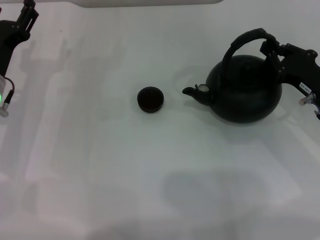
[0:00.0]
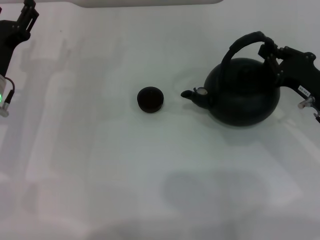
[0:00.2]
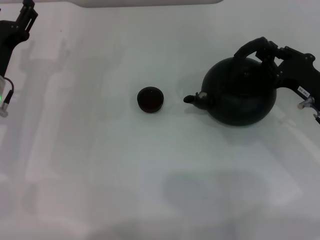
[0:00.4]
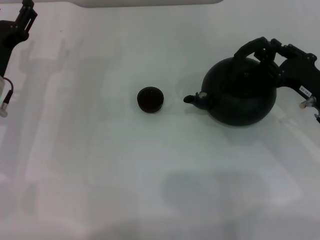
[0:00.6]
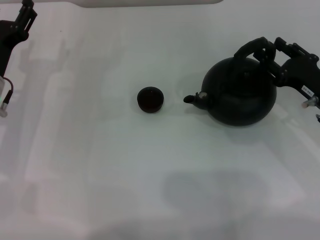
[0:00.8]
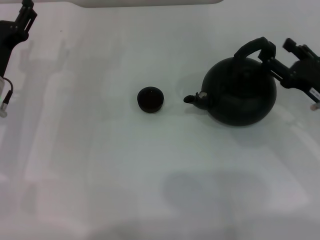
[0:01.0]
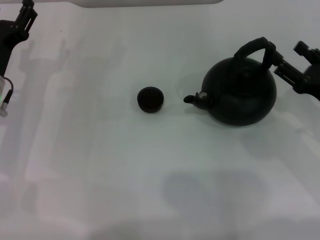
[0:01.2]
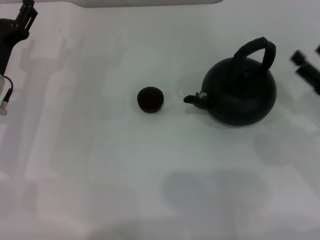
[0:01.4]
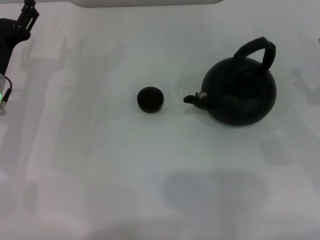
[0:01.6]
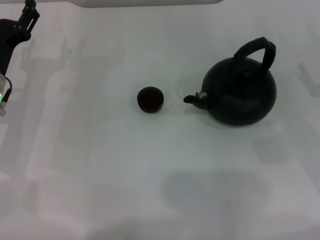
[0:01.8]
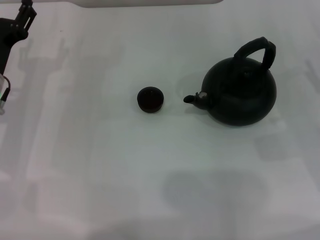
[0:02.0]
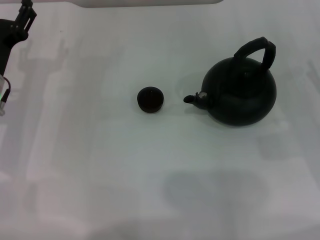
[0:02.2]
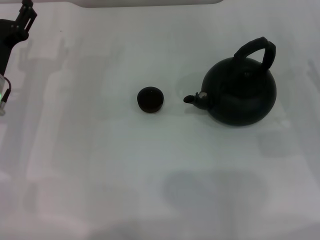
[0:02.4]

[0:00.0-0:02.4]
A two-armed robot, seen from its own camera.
Task of the whole recording: Grasp the handle of the teapot with one hand and pour tea into the teacup.
0:00.0 to 0:01.2: The right gripper opens its fingers.

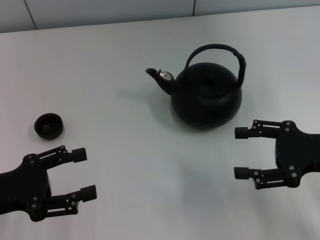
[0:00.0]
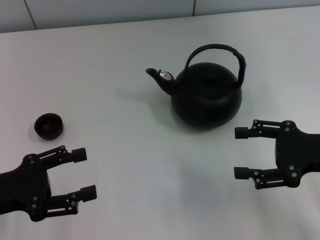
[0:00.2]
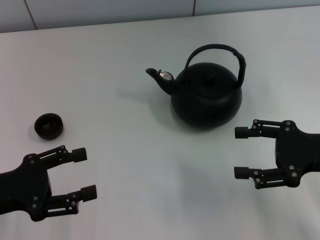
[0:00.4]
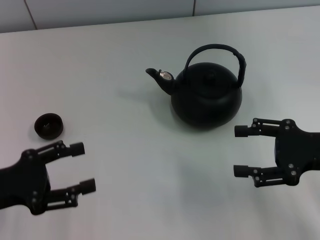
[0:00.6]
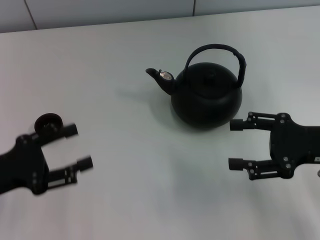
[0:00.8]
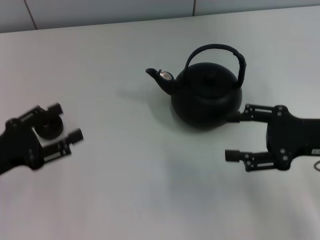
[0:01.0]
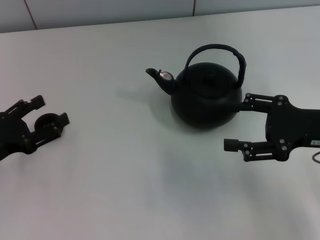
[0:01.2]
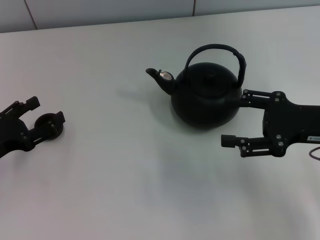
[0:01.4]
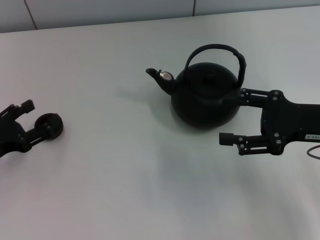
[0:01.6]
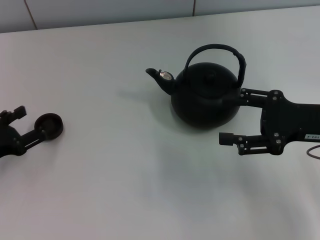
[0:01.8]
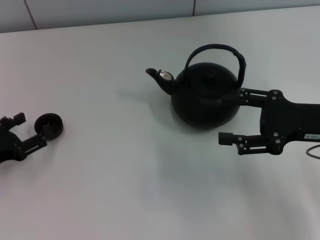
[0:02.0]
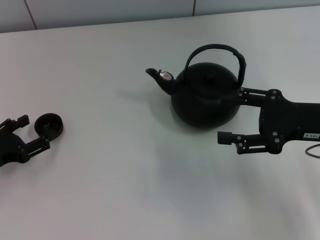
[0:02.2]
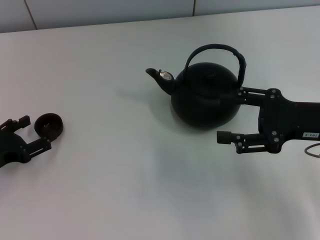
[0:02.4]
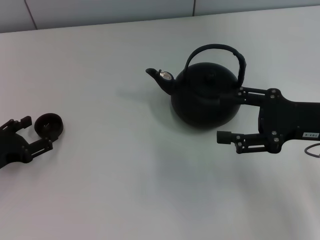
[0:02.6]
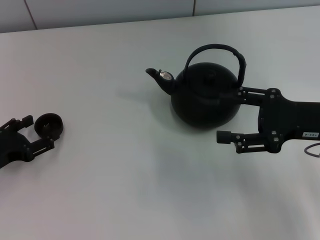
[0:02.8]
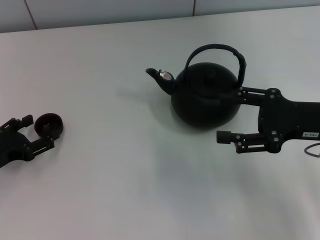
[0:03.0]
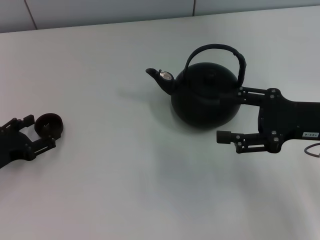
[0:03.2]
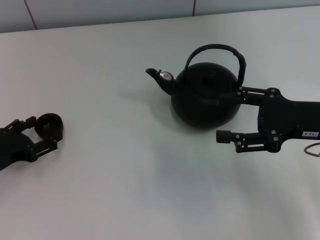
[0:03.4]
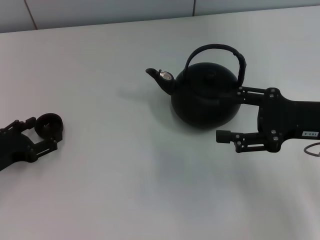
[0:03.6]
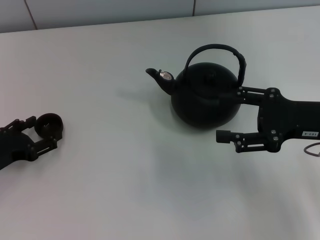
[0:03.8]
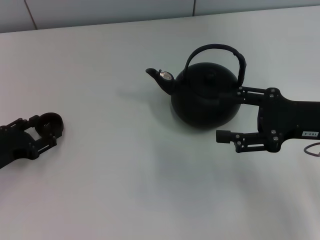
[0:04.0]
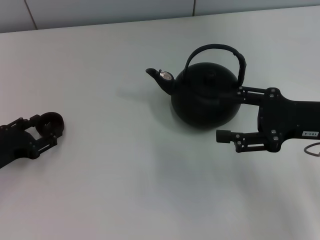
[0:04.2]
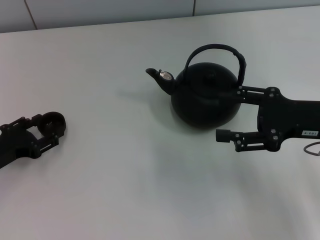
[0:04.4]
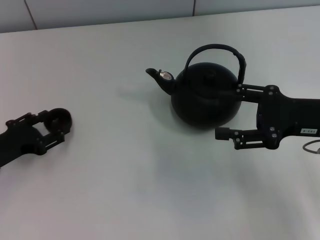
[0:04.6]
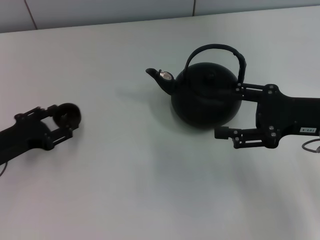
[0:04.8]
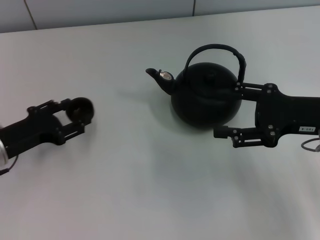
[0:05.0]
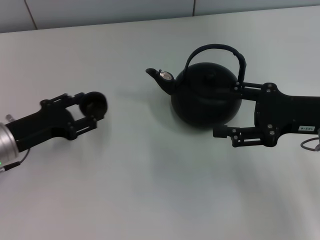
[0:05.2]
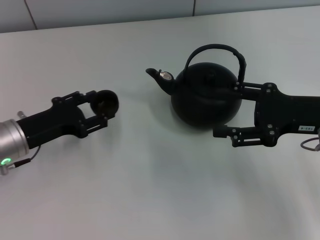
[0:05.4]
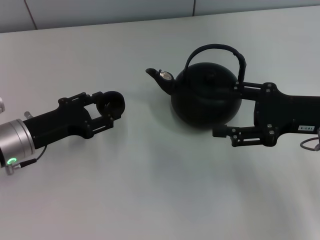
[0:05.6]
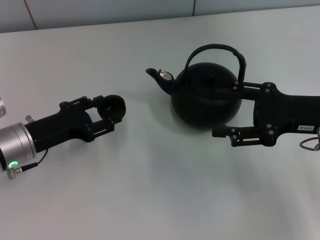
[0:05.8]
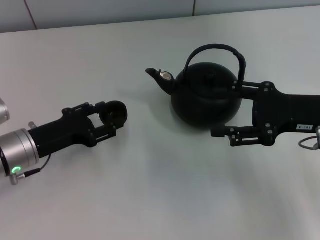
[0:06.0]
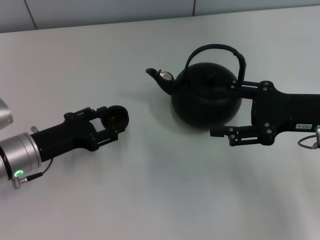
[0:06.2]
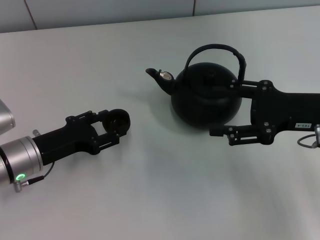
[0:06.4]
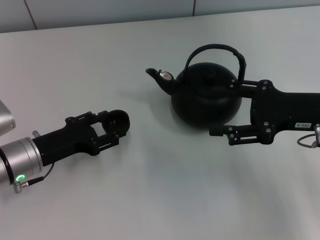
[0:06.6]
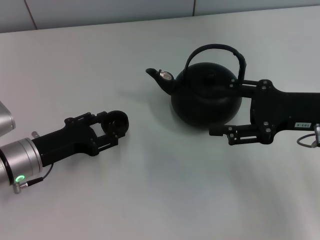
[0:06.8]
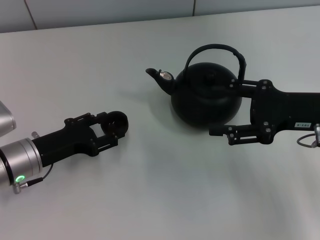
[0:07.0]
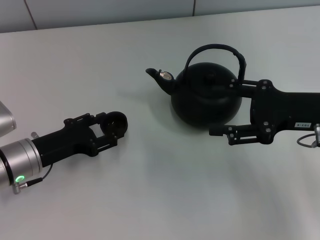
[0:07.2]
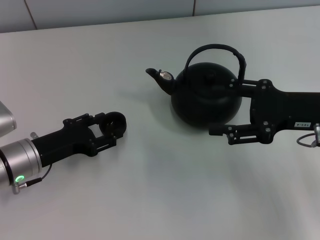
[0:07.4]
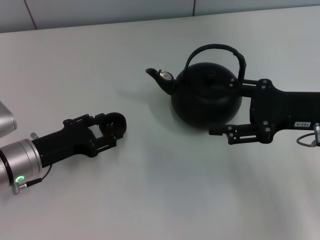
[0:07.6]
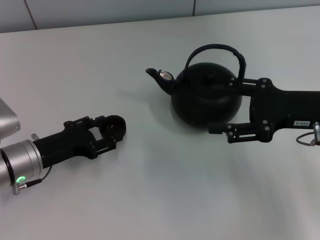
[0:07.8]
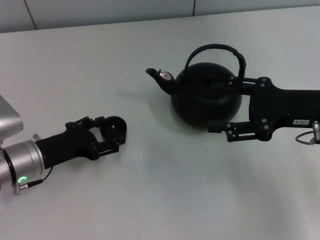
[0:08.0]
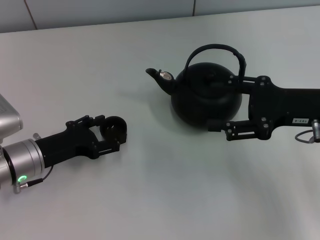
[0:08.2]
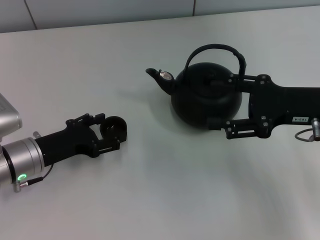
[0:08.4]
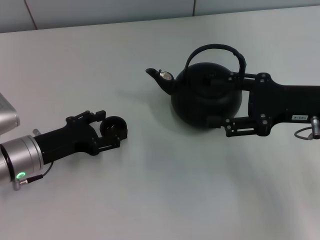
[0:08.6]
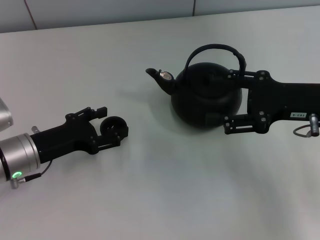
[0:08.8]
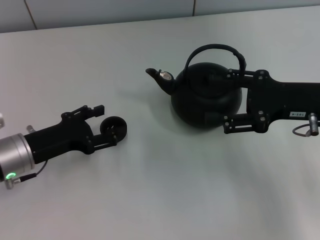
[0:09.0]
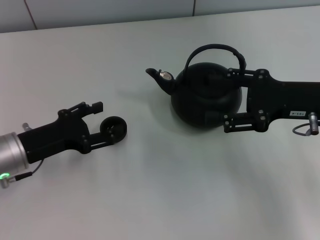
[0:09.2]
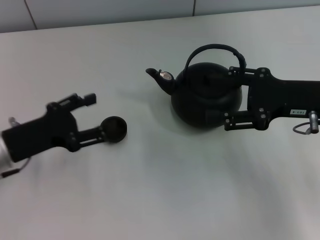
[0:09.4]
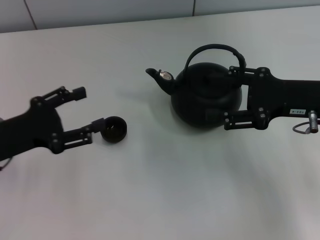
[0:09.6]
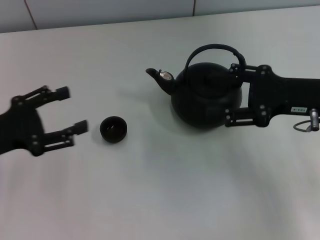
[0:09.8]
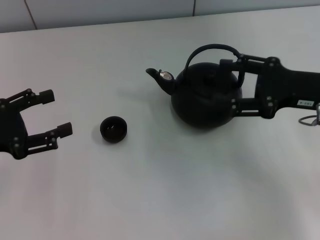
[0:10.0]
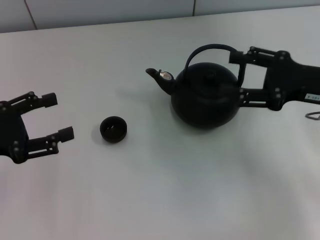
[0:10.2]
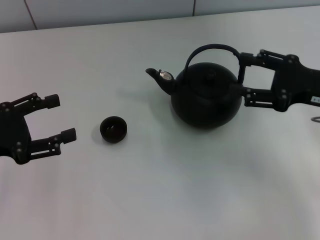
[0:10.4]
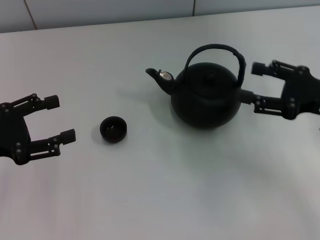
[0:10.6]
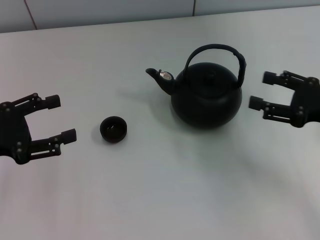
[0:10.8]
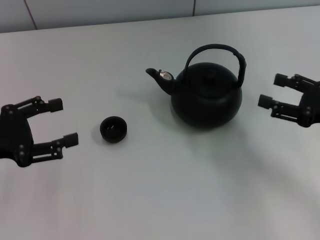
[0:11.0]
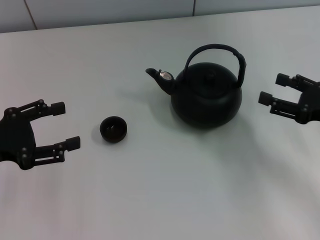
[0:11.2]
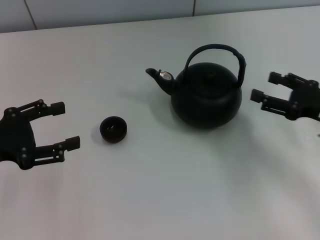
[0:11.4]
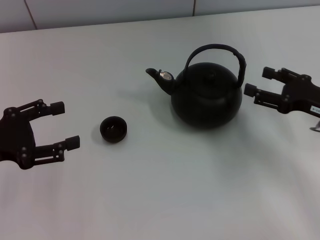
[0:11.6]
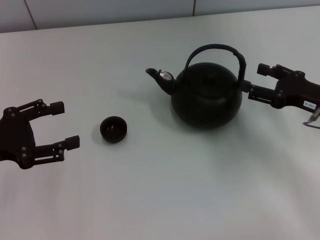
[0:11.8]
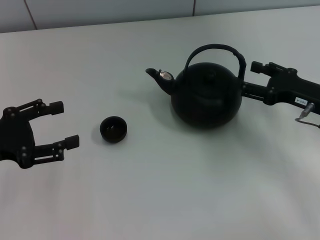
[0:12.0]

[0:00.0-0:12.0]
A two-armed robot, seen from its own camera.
Task of the whole recording: Grasp the handle of the teapot with one hand and pour tea into the teacup.
Step, 0:00.0 to 0:05.0: Pick up the teacup with the left gripper.
Step, 0:05.4 to 0:09.6: Place the teacup in the center of view with the left gripper.
0:00.0 to 0:01.6: The left gripper shifts by approximately 5 cm.
0:01.6 to 0:03.0: The grippers move only a little.
0:03.0 to 0:04.4: The left gripper closes its fingers.
0:04.4 to 0:06.0: The left gripper goes approximately 5 cm to the right.
0:06.0 to 0:07.6: The left gripper opens up.
0:07.6 to 0:09.0: There are only small adjustments of the grippers.
0:09.0 to 0:10.4: The left gripper goes roughly 10 cm to the left and upward.
0:10.4 to 0:12.0: The right gripper goes approximately 5 cm downward.

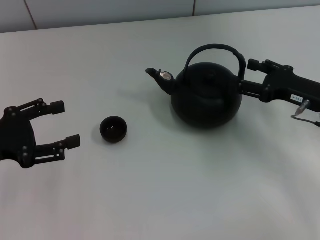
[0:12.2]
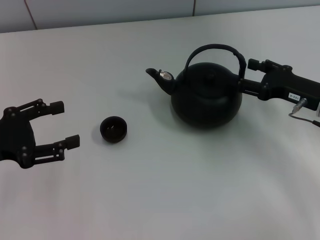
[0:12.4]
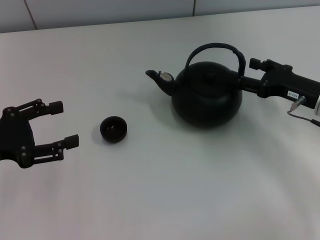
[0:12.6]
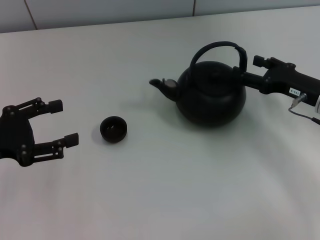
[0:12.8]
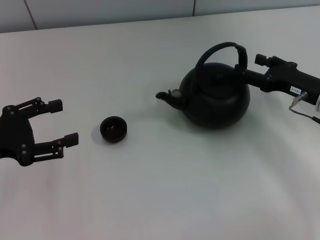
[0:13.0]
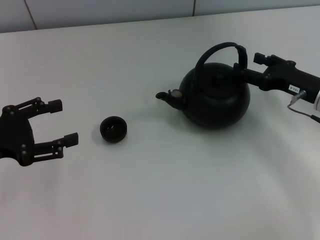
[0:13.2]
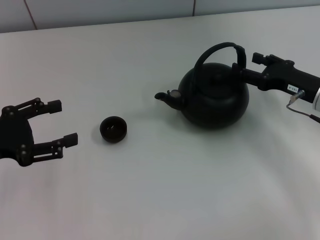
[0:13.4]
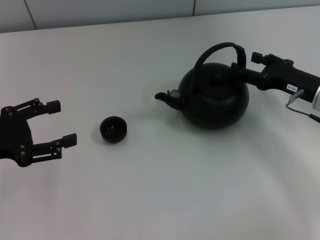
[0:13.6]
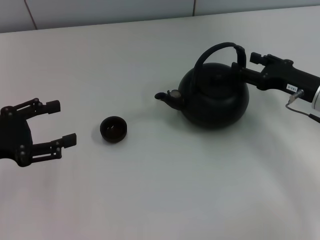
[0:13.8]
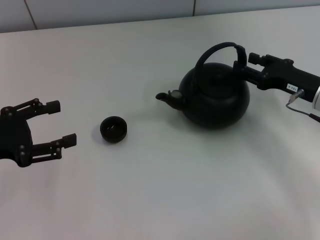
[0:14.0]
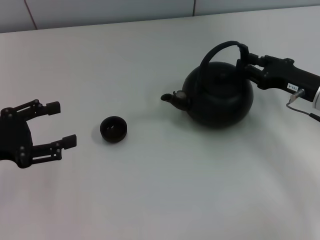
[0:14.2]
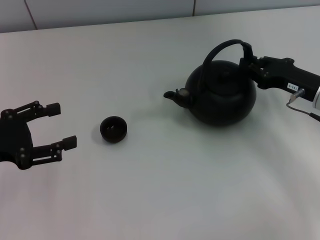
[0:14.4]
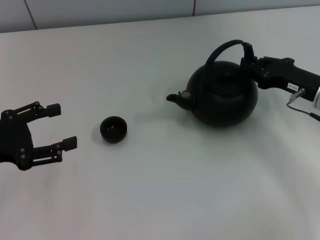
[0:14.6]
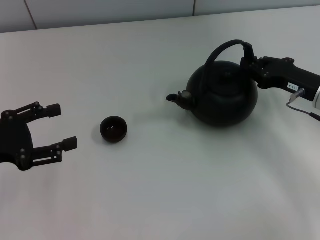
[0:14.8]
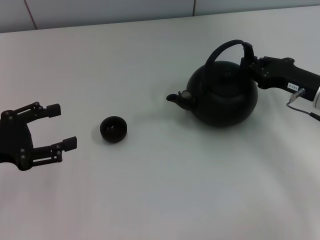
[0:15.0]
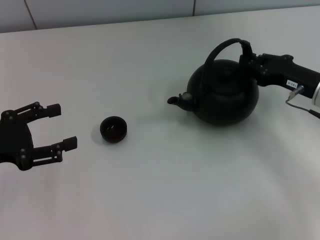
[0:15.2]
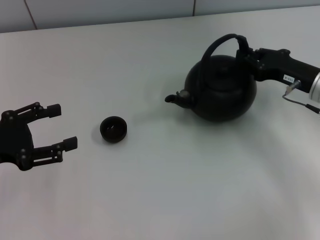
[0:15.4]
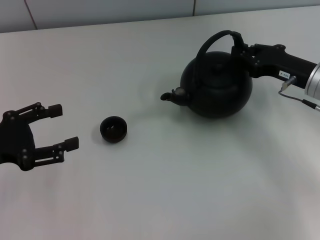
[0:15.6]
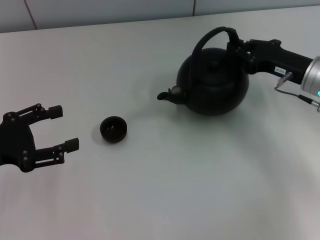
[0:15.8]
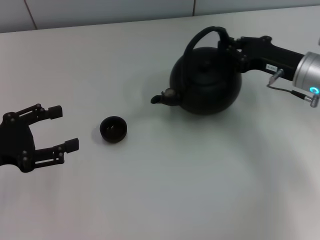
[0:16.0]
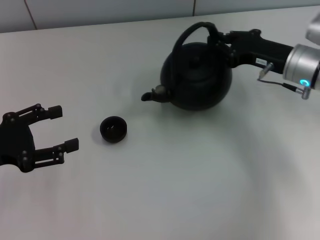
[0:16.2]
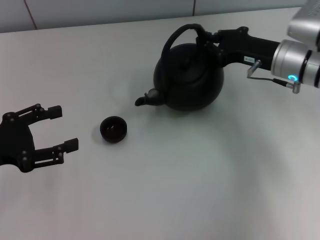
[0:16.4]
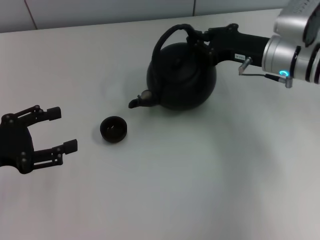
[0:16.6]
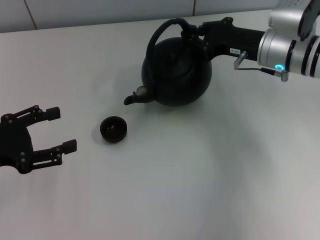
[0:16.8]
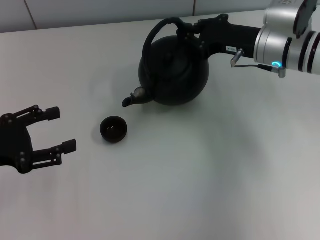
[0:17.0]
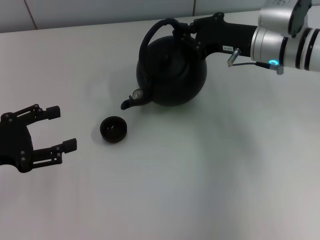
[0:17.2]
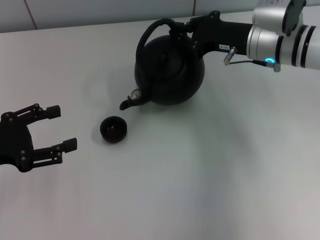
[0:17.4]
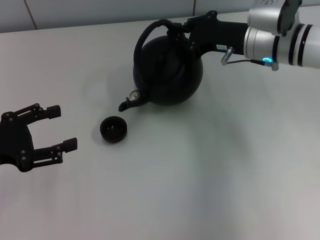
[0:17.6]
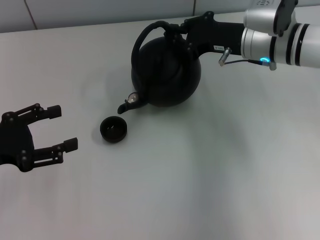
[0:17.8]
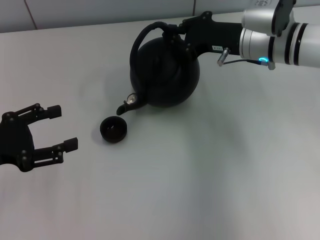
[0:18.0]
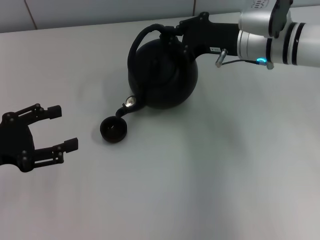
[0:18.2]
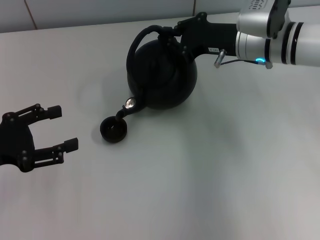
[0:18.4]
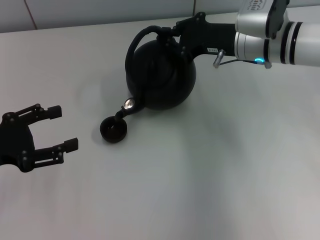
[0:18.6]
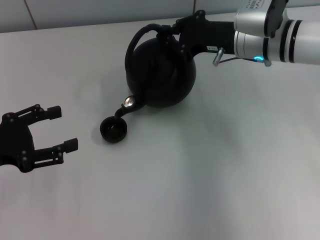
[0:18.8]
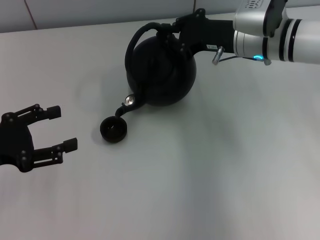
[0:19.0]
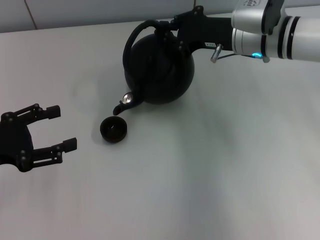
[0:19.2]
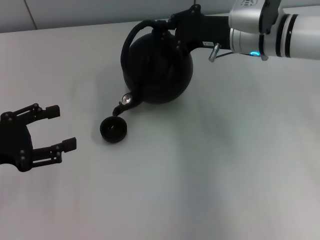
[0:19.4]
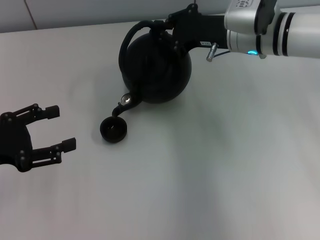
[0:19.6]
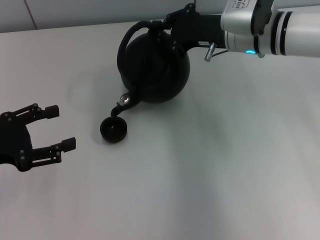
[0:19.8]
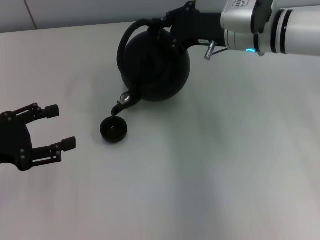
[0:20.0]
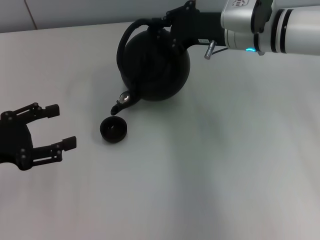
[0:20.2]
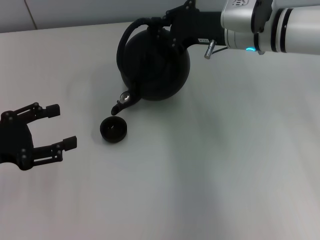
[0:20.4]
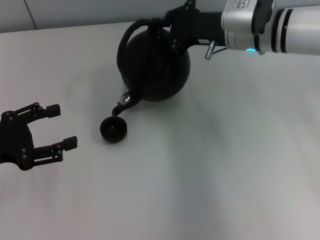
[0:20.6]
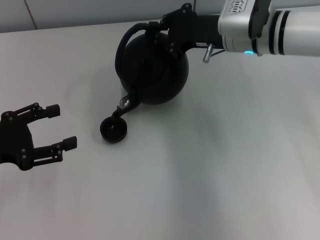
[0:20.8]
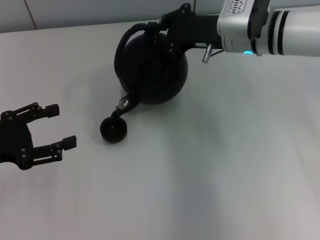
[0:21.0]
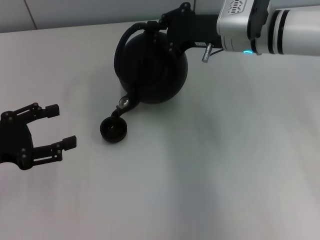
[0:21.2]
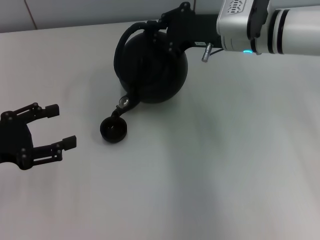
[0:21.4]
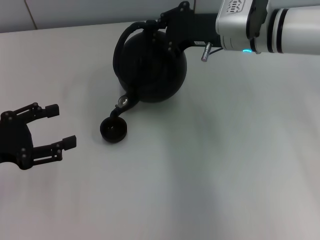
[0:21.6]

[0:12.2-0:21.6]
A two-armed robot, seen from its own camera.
Task of the whole recording: Grasp the handle of the teapot with one hand and pour tea into the teacup.
Step, 0:12.2 to 0:16.0: Pick up the teapot with the right gripper.
0:12.2 to 0:13.8: There are only small adjustments of the grippers.
0:13.8 to 0:15.4: The right gripper closes its fingers.
0:15.4 to 0:17.0: The right gripper travels to the left and forward by some 10 cm.
0:17.0 to 0:20.0: The grippers make only small movements.
0:20.0 to 0:21.6: The two grippers keep their place.
